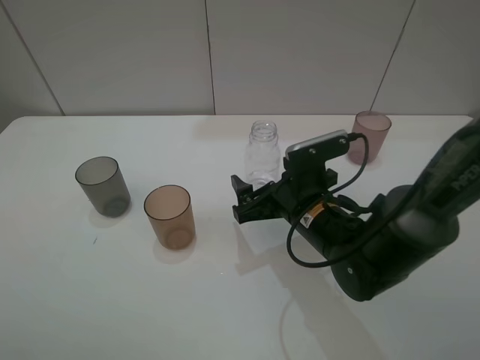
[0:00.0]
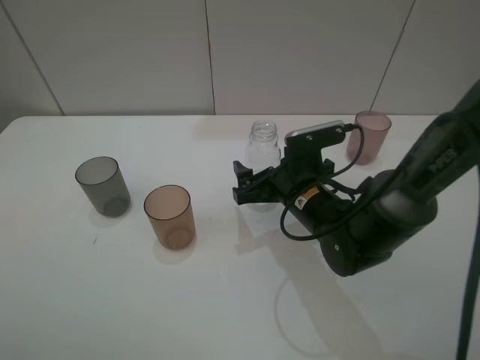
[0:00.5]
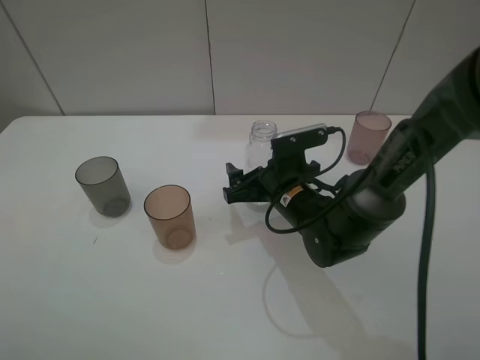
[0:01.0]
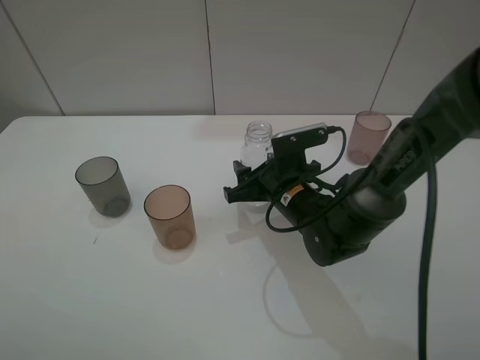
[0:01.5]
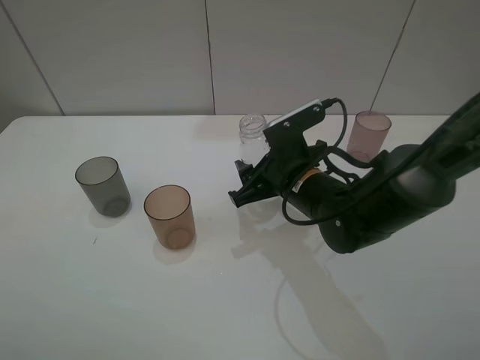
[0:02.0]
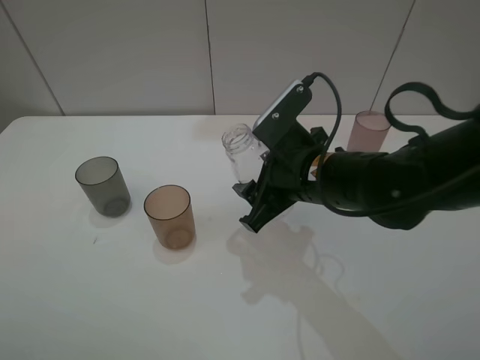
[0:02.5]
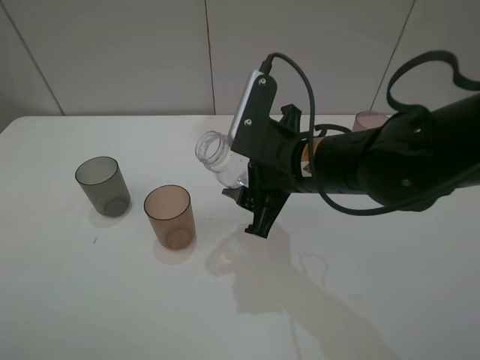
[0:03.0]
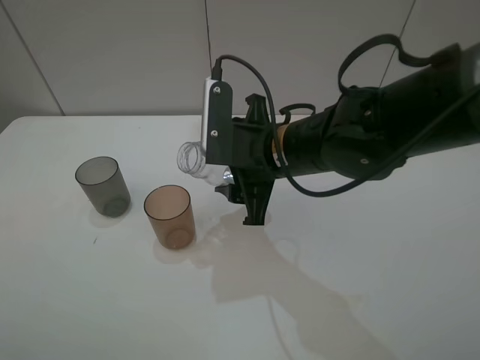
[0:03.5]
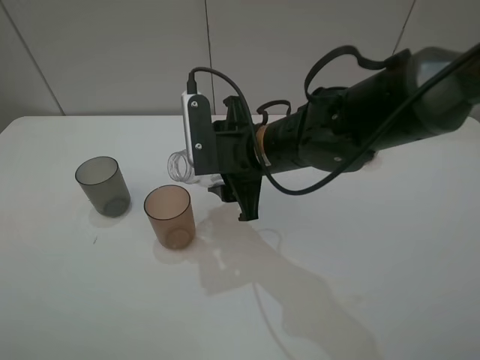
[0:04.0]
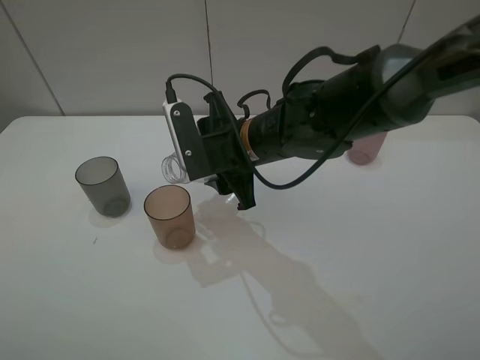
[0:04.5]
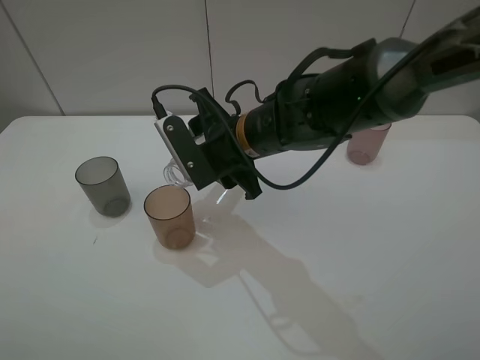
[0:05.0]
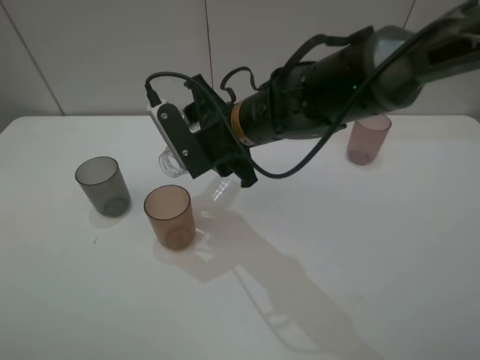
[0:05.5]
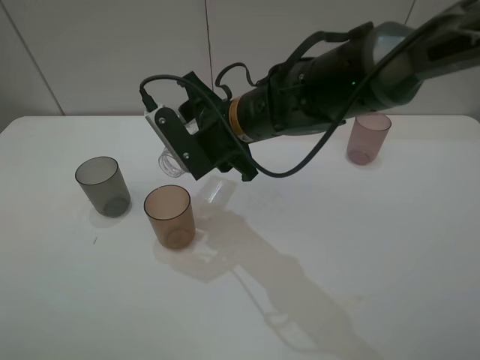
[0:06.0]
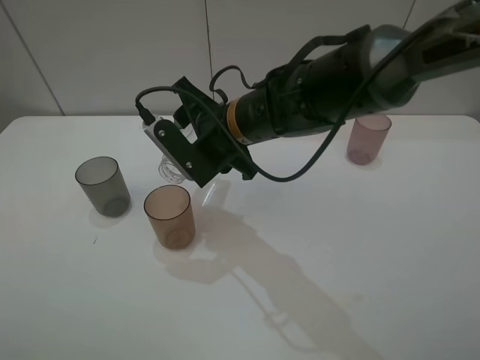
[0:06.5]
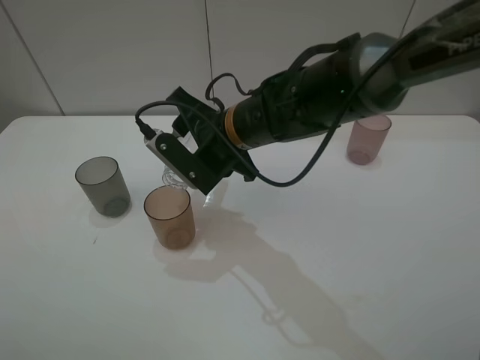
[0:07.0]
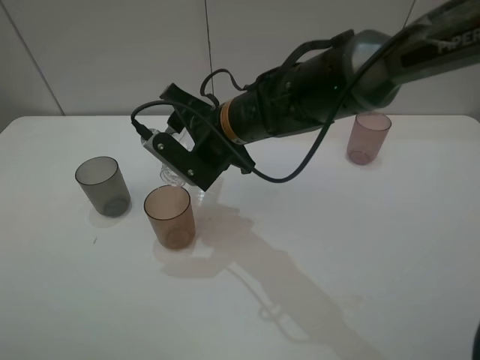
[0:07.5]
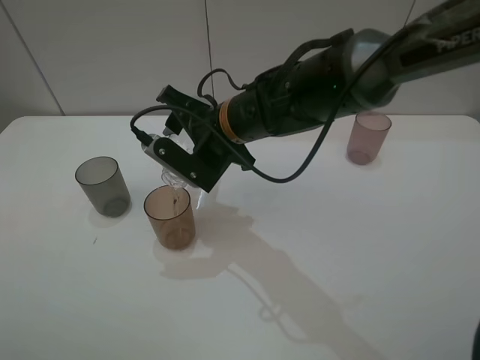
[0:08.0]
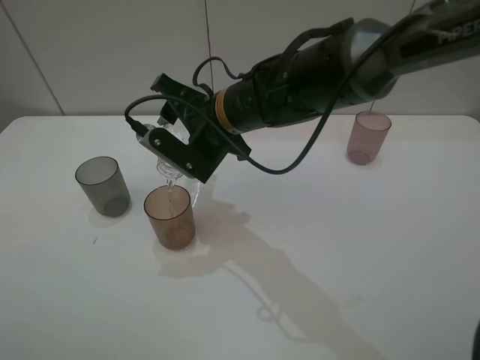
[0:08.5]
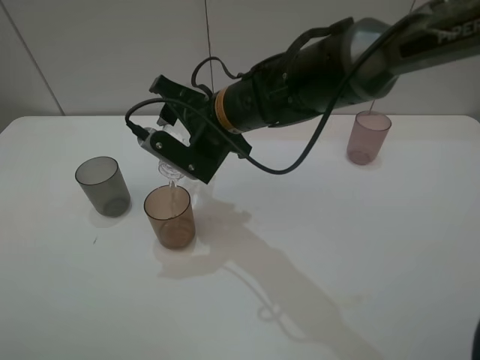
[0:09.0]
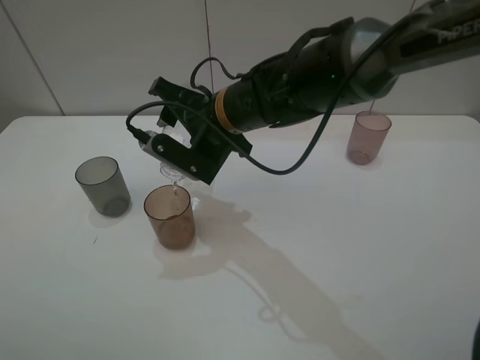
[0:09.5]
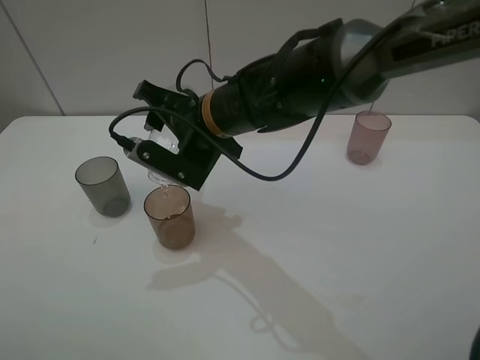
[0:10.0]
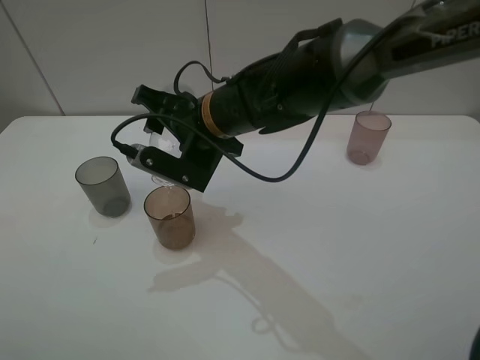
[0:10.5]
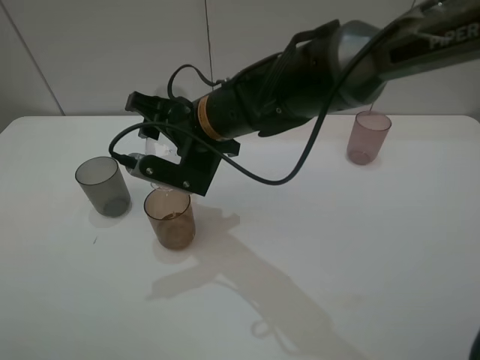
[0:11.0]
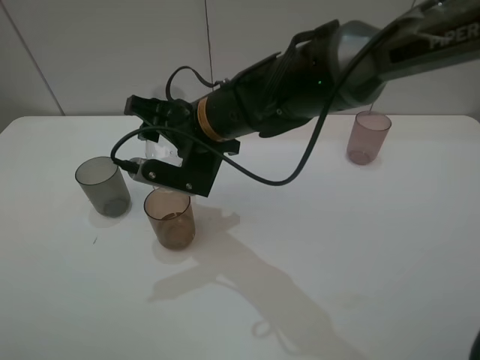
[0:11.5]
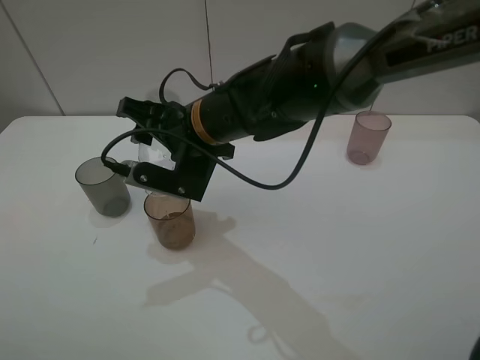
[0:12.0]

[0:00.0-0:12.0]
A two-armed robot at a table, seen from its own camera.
Task of the whole recording: pick up the bottle filled with water and pour water into the middle cup of the three cups.
0:00.0 to 0:02.0: The right gripper closes its fingers.
0:02.0 to 0:04.0: The right gripper shifts about 5 cm upward.
0:06.0 to 0:08.0: The grippers make only small movements.
0:08.0 to 0:12.0: There are only small adjustments of the grippers.

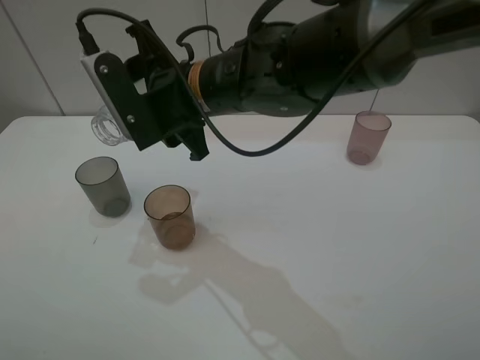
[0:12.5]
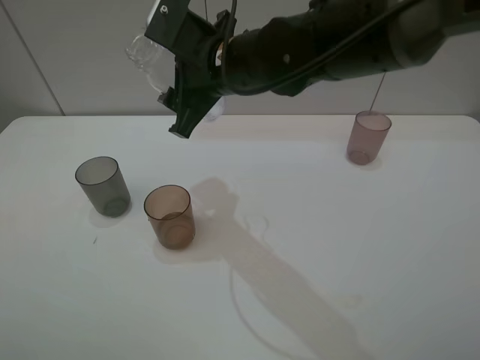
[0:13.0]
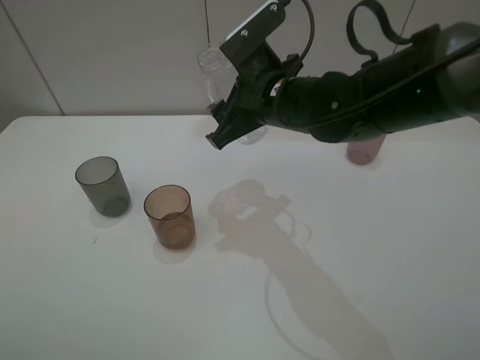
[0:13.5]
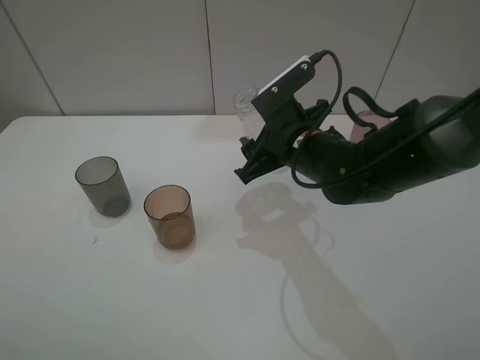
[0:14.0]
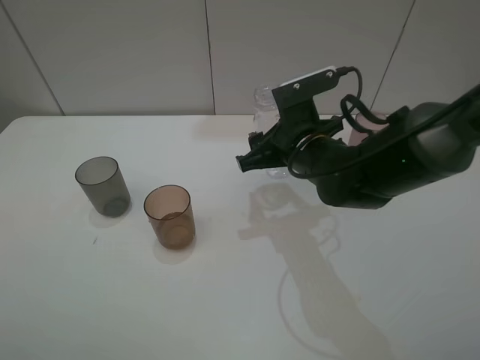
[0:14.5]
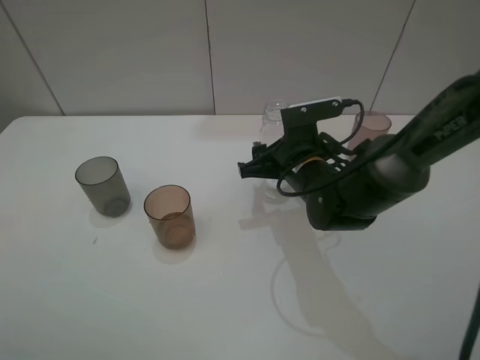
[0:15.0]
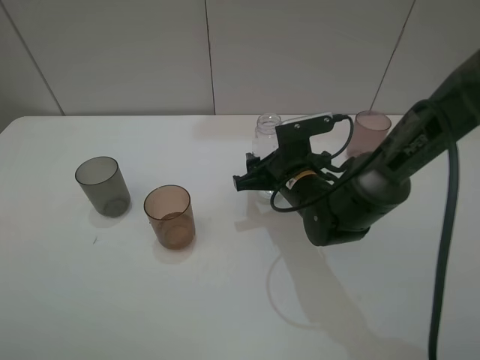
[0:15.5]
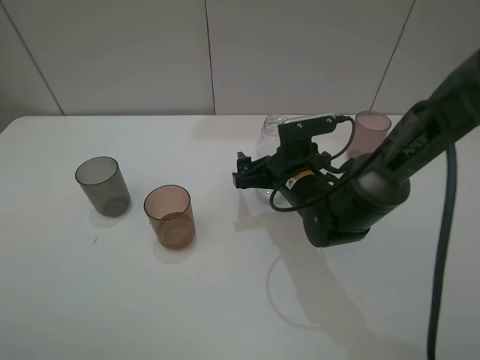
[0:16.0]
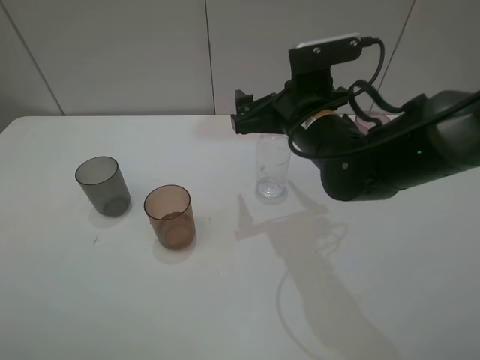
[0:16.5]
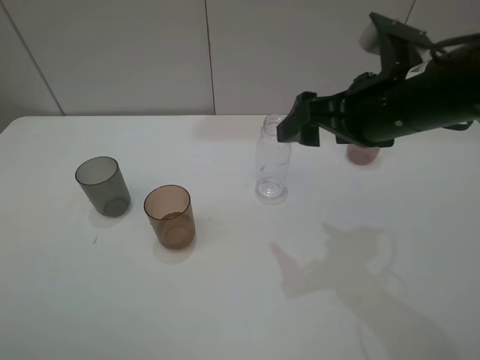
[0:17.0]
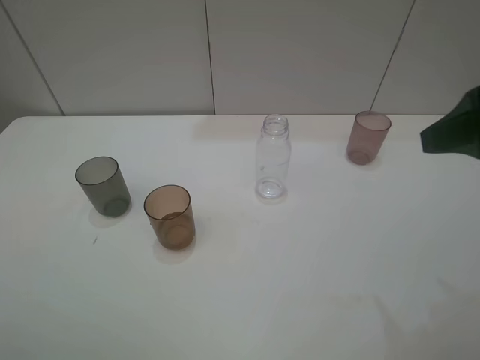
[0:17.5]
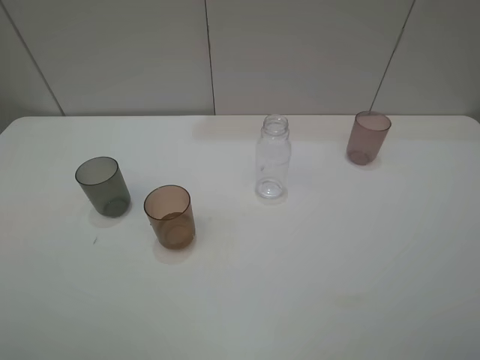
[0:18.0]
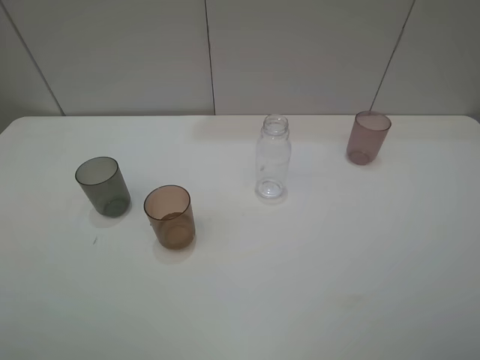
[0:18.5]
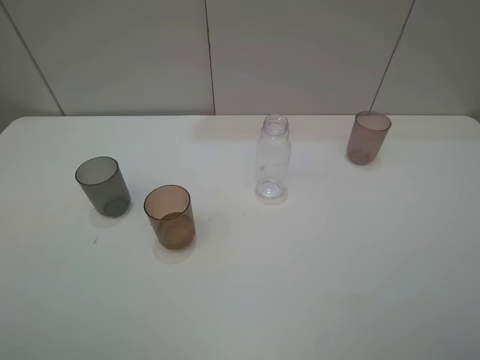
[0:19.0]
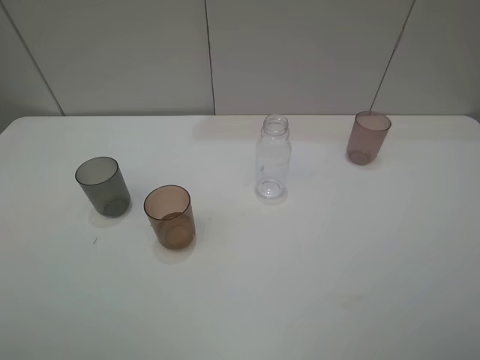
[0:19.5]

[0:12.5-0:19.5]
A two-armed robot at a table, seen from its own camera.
Task of the whole recording: pick up the bottle filled with water and pour water into the middle cup of the three cups.
Step, 0:12.5 to 0:16.5: Place the transparent bottle with the right gripper.
0:12.5 to 0:14.5: The right gripper shifts some 15 cm to the right and downward.
0:14.5 to 0:16.0: The right gripper shifts approximately 5 cm downward, and opens.
0:16.0 to 0:17.5: The right gripper is displaced upward, to the right and backward by about 35 cm.
0:17.5 to 0:19.5: The right gripper travels backward by about 15 cm.
